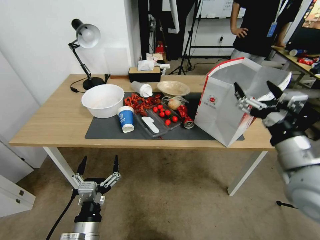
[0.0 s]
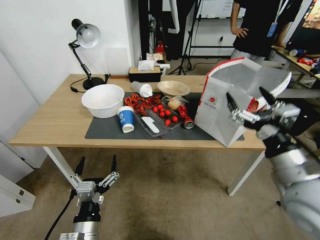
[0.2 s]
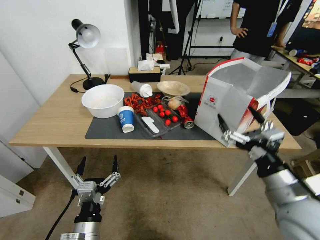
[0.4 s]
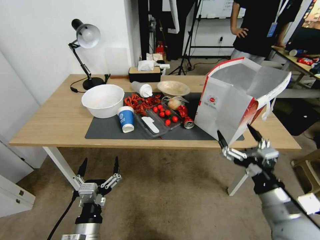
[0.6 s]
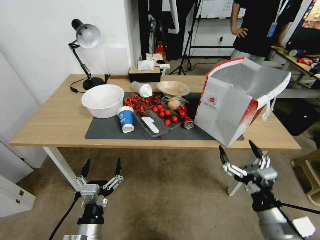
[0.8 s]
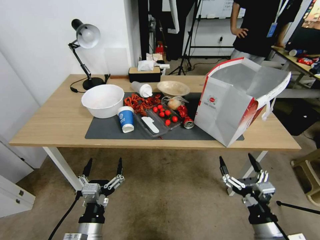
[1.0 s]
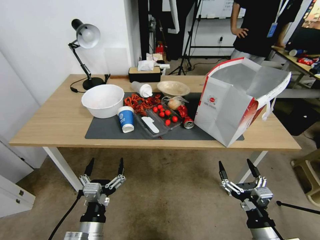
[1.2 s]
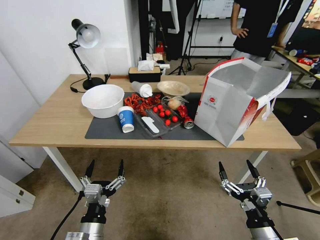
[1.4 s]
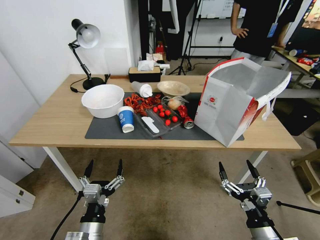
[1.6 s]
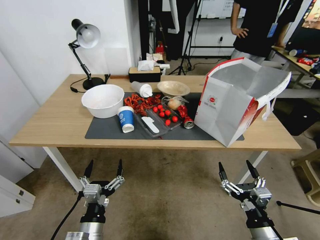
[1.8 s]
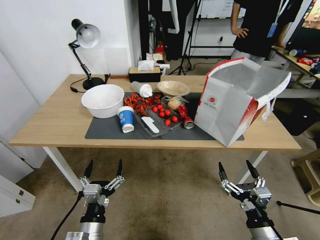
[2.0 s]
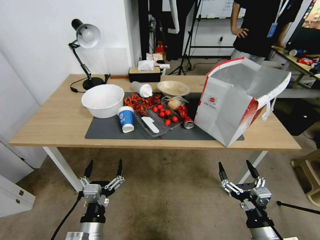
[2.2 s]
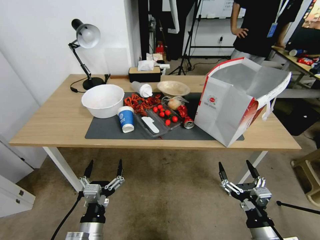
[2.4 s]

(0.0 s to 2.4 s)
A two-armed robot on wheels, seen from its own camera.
Task of the whole recording: Pick up the food delivery bag from the floor and place it on the table.
0.0 s - 1.2 s: The right gripper shifts about 25 cm downward and backward.
1.2 s - 2.4 s: Both grippers stay put.
